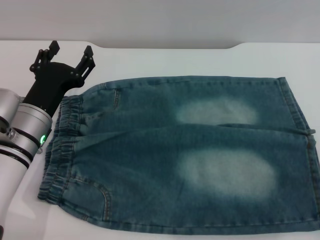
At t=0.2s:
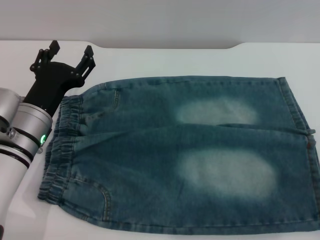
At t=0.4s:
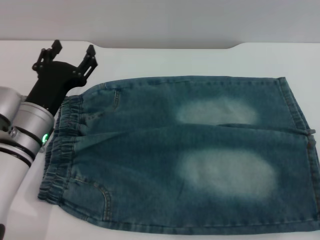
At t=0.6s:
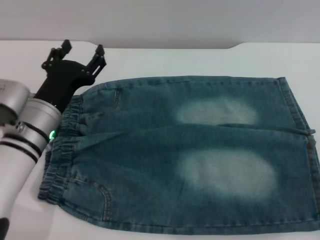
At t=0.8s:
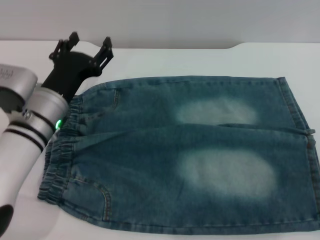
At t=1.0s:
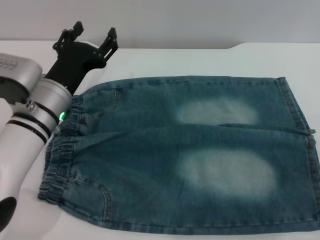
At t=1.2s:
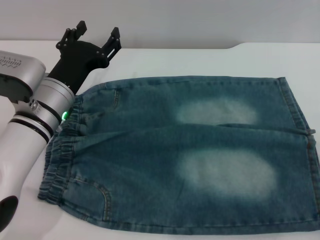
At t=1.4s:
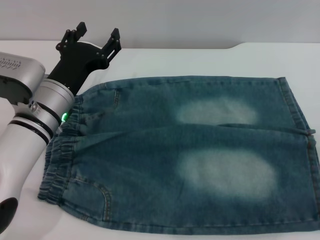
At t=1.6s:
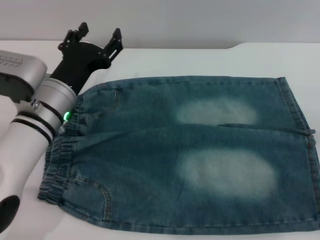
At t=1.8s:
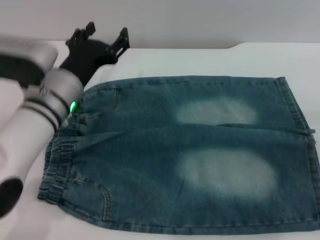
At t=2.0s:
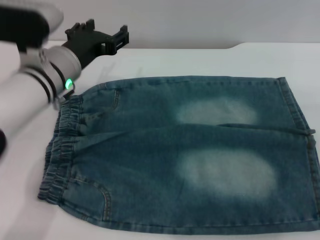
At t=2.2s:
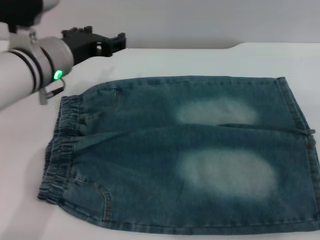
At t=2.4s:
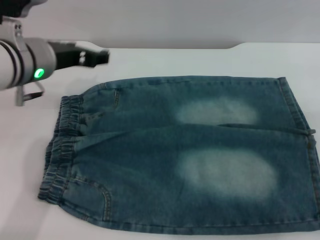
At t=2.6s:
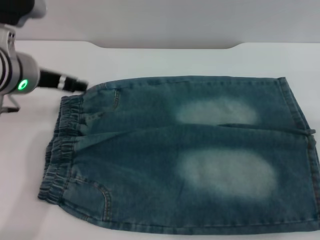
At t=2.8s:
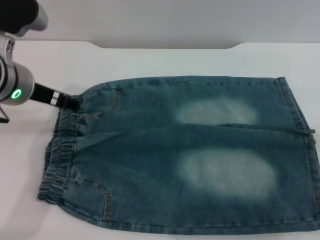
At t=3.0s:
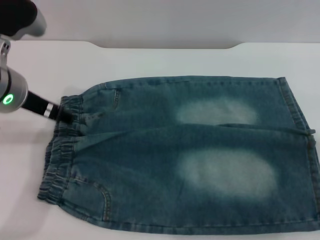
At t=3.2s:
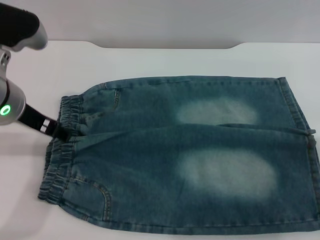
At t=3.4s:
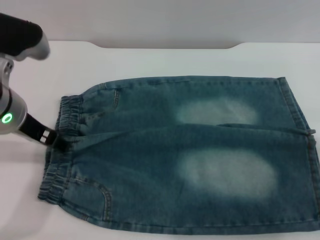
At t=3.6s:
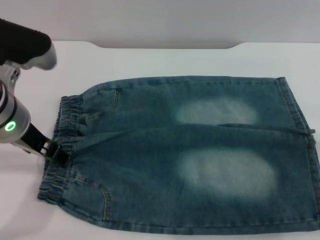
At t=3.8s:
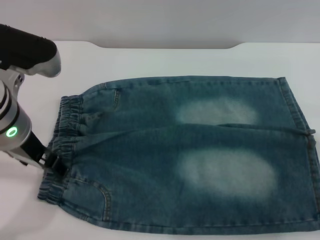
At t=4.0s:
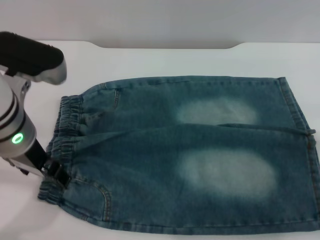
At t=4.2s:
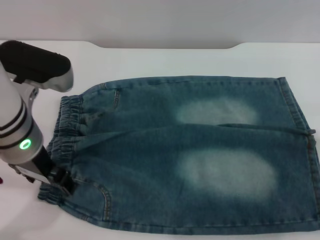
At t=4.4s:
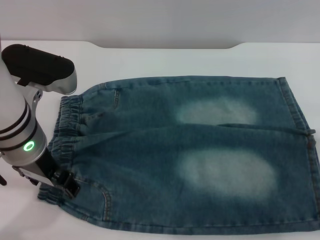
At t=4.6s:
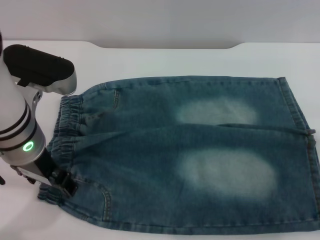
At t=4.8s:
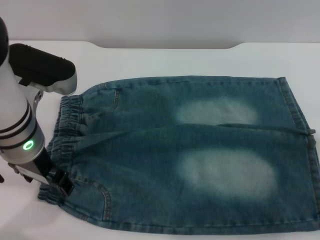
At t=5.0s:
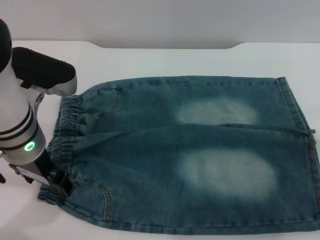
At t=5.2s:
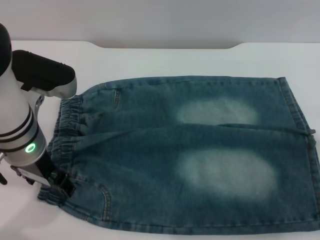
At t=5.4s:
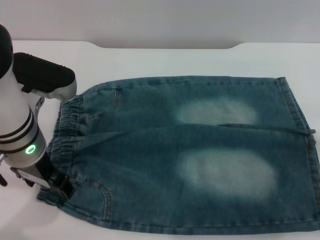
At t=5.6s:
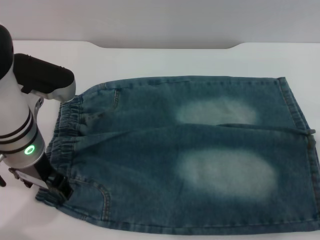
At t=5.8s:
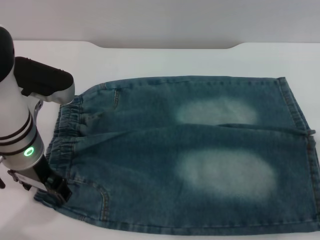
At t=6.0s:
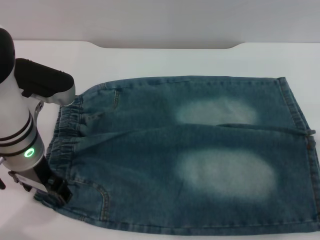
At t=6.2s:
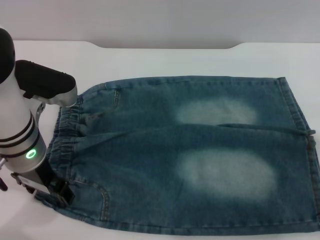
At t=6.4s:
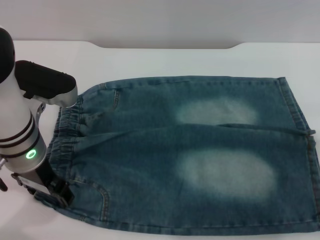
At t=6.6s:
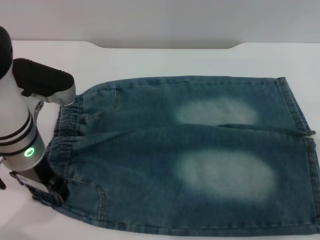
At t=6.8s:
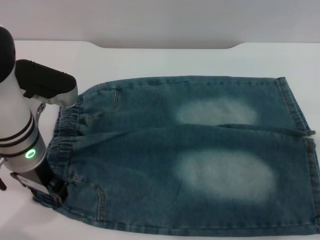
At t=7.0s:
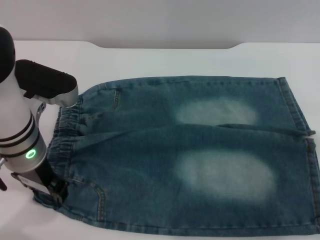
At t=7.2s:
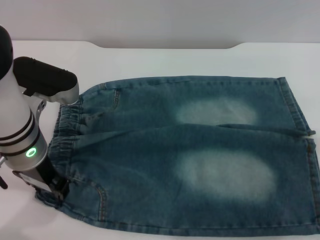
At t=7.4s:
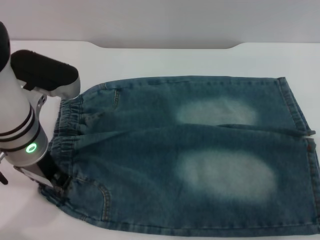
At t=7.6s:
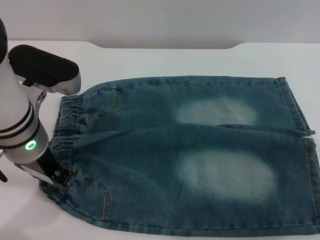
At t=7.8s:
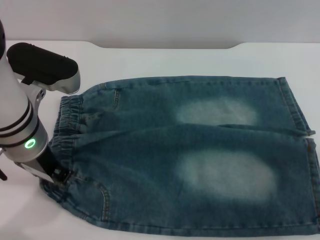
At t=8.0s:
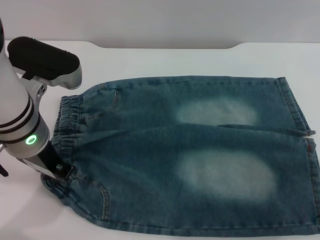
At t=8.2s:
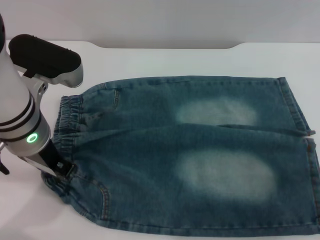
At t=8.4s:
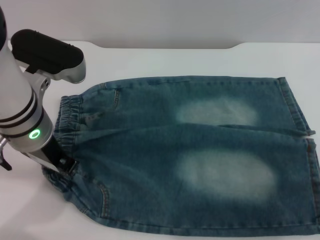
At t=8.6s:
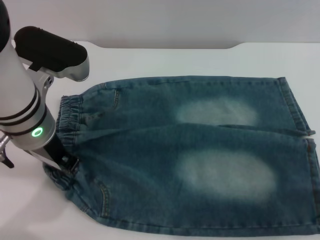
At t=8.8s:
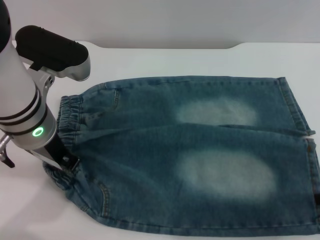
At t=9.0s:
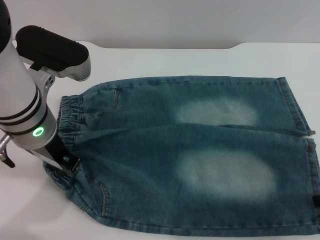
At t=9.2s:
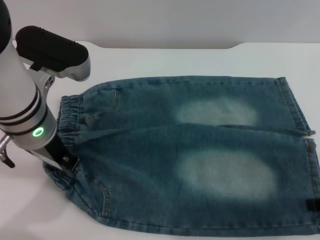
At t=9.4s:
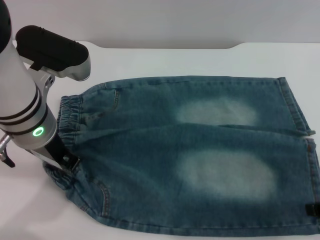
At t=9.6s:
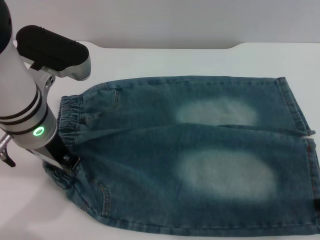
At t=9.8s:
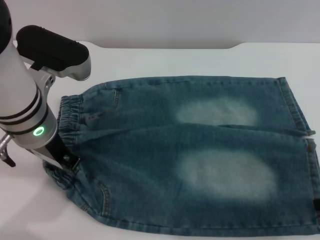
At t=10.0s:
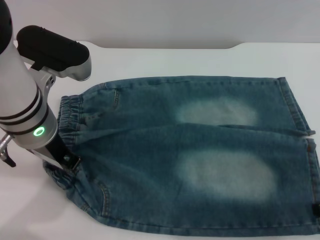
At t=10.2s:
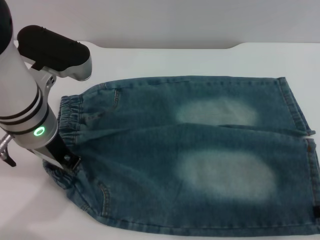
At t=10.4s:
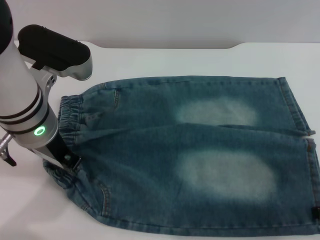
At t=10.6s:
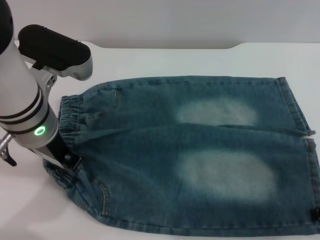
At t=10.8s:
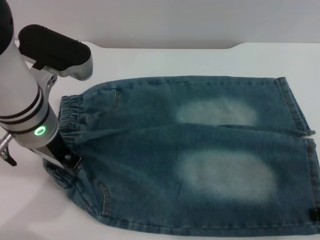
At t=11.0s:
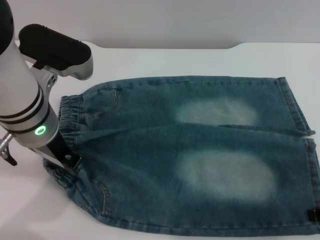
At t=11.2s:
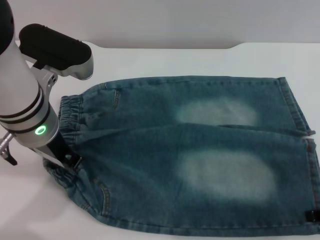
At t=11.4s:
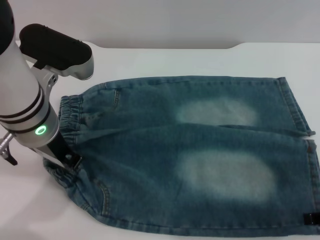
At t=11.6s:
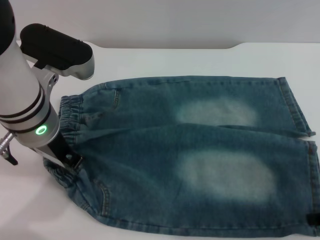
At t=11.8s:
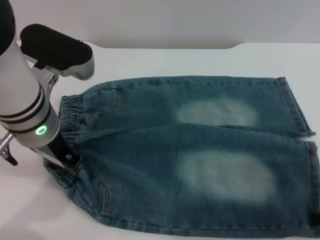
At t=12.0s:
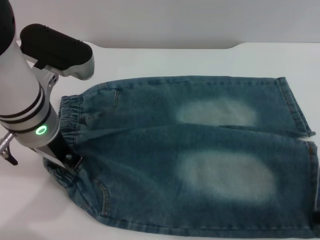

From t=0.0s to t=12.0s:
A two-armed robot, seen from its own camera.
From t=0.0s to t=1.6s: The left gripper shifts by approximately 5 cm.
From t=1.6s to t=3.0s: The left gripper goes roughly 10 cm upward.
From t=3.0s to t=4.4s: The left gripper moves approximately 5 cm.
From t=4.4s to t=6.0s: There are only small adjustments of the grippers.
From t=6.0s to t=7.6s: The left gripper closes.
From t=9.0s to t=10.4s: There are only small adjustments of the grippers.
From t=10.4s to t=12.0s: The right gripper closes its fingers.

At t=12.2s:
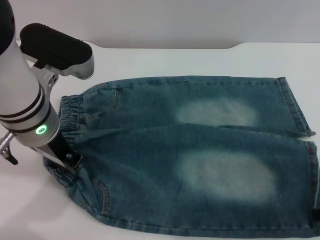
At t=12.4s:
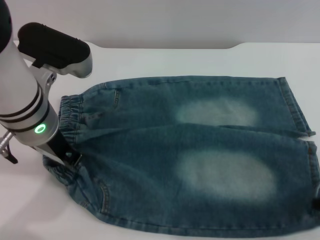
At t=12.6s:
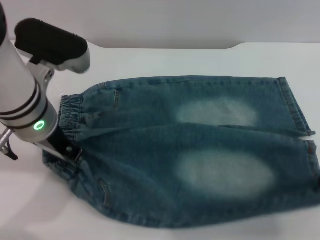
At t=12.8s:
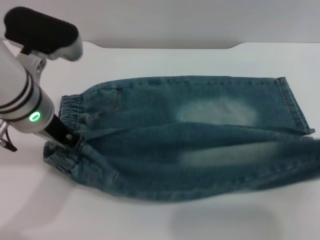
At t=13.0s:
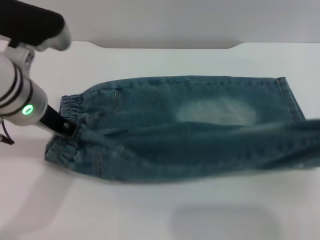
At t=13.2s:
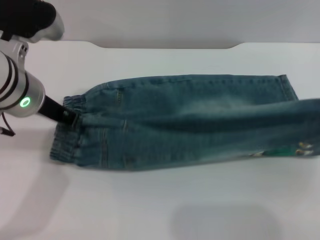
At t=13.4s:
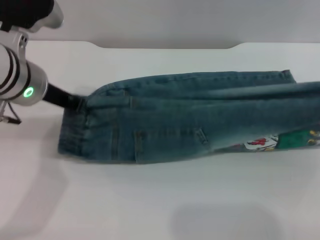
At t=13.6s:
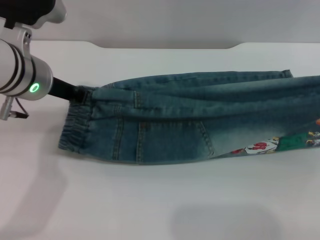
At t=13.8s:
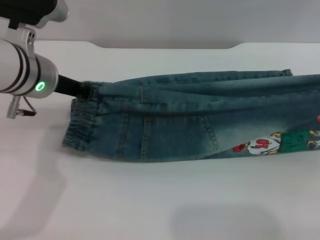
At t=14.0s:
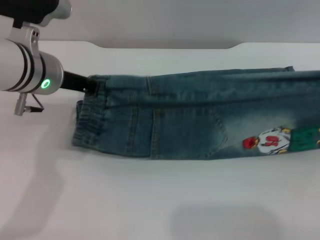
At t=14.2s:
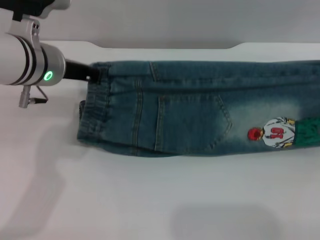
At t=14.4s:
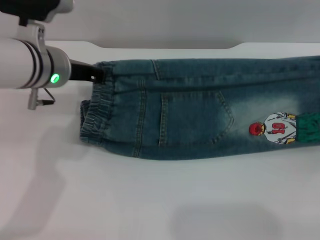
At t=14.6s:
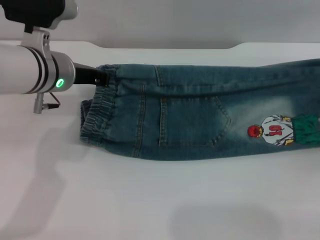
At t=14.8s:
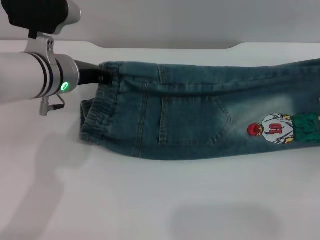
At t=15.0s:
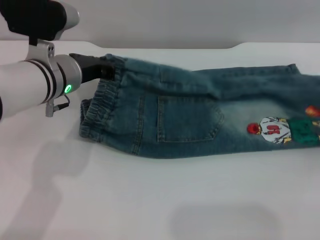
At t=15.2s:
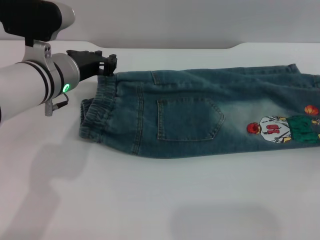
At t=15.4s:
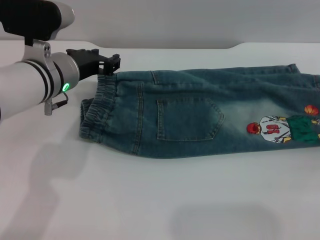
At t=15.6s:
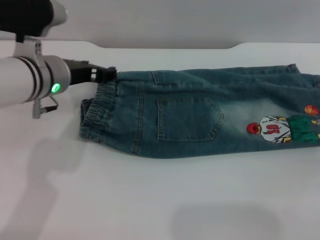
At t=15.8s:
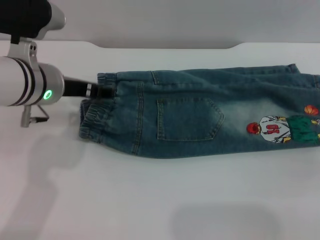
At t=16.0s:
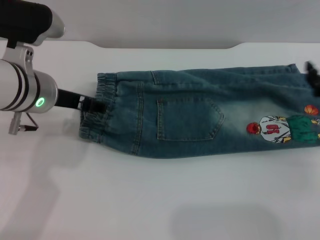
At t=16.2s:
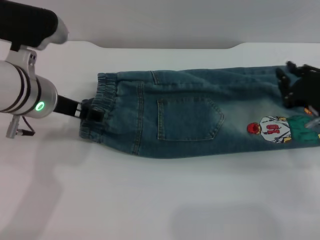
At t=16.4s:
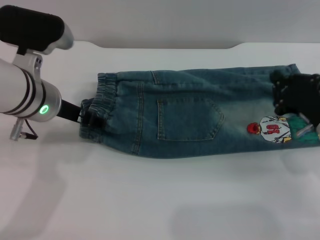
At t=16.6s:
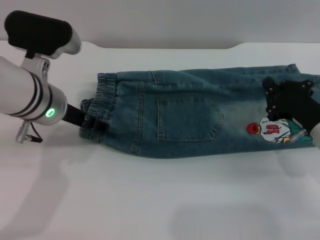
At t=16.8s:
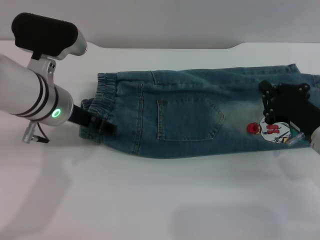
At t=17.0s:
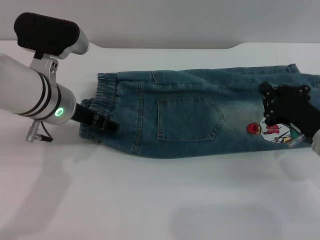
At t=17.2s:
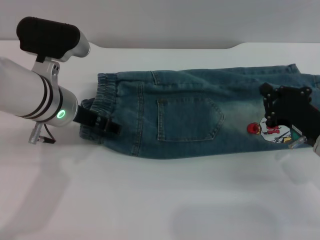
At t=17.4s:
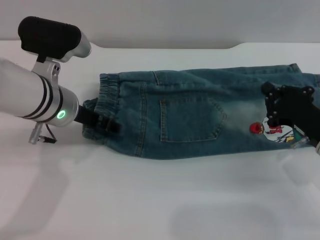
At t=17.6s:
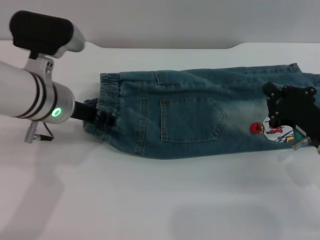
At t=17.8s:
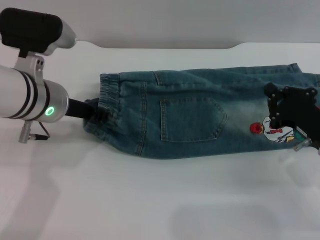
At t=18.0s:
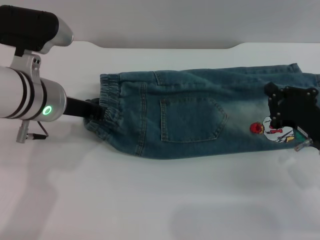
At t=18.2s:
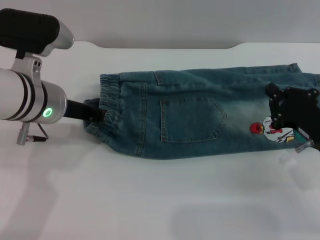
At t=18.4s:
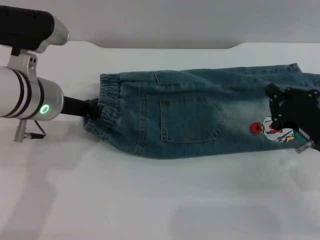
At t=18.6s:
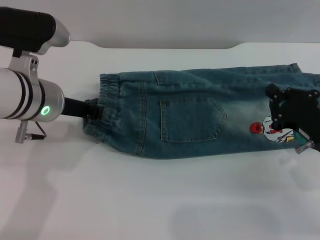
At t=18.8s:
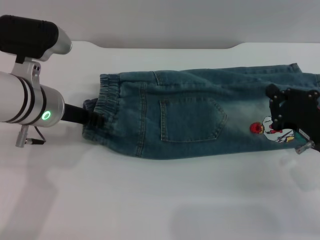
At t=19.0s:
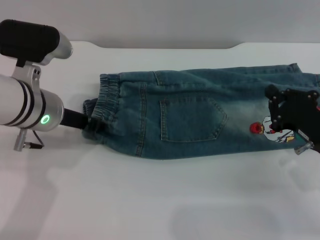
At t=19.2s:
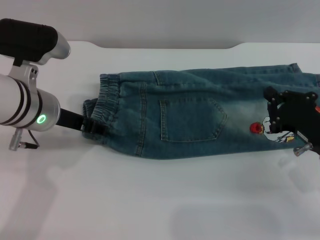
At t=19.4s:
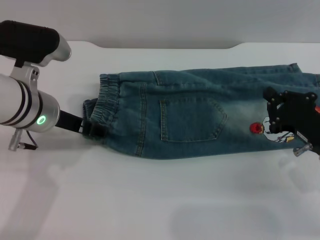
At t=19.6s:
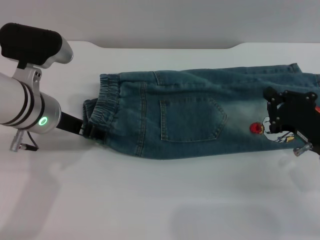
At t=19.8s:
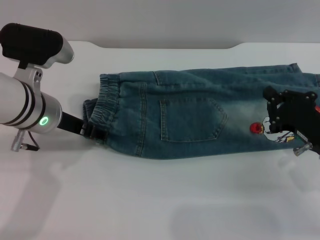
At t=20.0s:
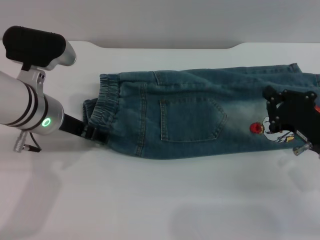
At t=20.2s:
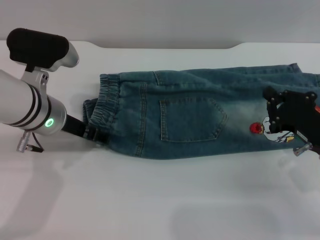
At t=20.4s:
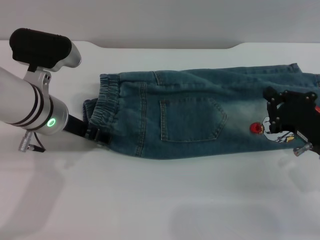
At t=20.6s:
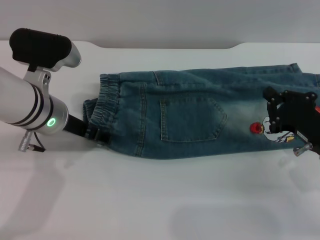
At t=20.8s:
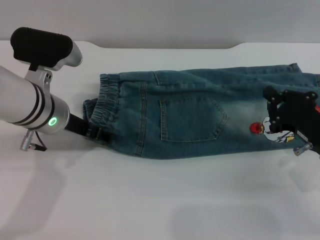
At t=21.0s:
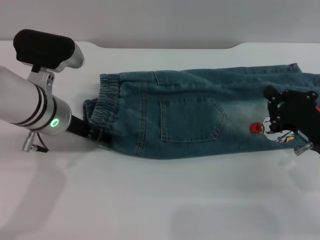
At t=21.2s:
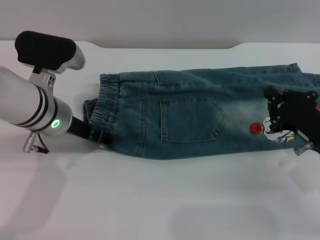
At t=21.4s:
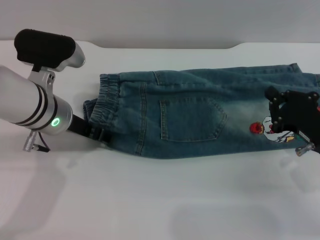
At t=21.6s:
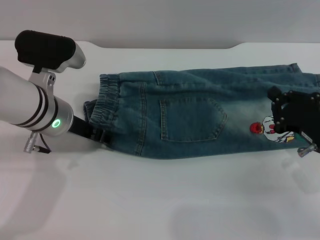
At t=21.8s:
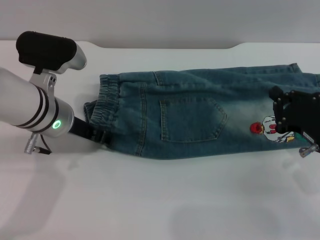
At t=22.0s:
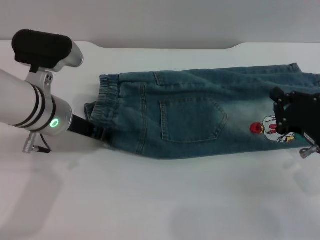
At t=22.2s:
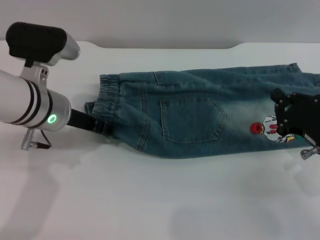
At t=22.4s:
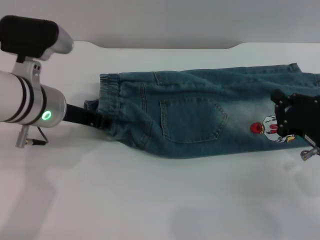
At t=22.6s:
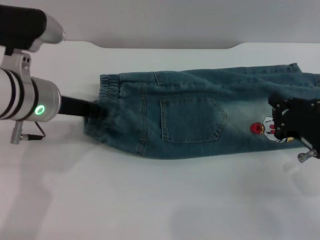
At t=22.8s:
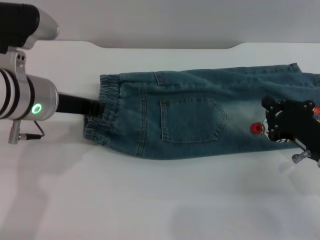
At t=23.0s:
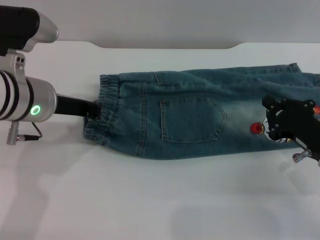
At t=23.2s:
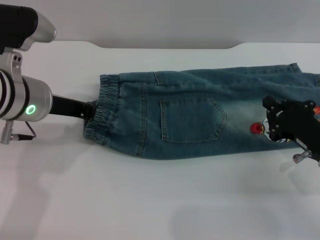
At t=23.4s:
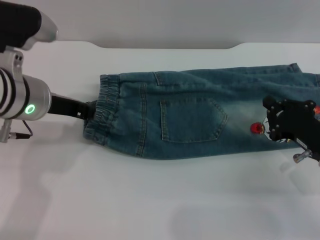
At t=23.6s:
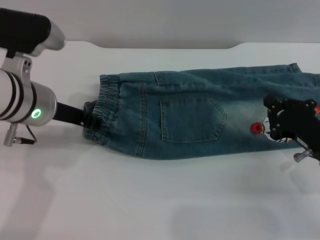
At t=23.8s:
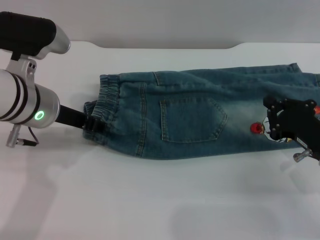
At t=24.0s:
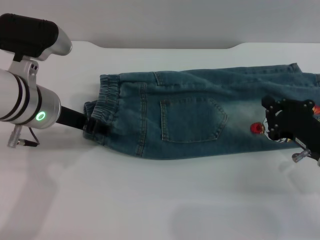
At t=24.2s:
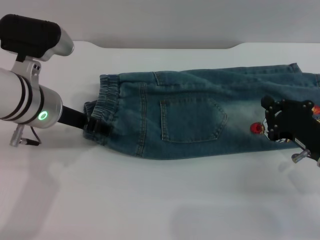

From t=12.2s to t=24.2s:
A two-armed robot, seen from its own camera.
Step, from t=12.2s to t=15.4s: Fold the bottom of the pants upward with both grippers.
From t=12.2s to t=13.8s: The right gripper is displaced to the right by about 5 cm.
From t=13.8s to t=15.2s: The left gripper ends up about 5 cm from where it was. The right gripper heads forward and downward, covering about 10 cm.
From t=15.2s to t=16.6s: The right gripper travels to the left and downward by roughly 15 cm, and opens and closes again, while the left gripper opens up.
From t=16.6s to t=18.2s: The left gripper closes up.
From t=18.2s to t=19.8s: The left gripper opens its fingers.
From t=19.8s to t=21.2s: There are only small adjustments of the grippers.
From t=21.2s to t=22.6s: The left gripper closes.
From t=22.6s to t=24.2s: The left gripper opens up.
